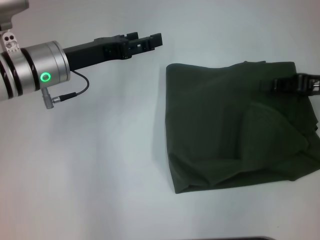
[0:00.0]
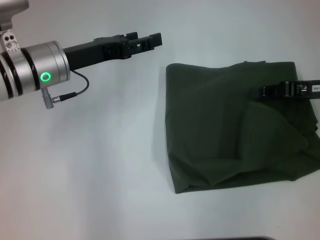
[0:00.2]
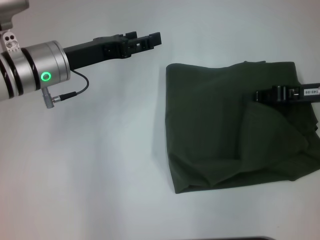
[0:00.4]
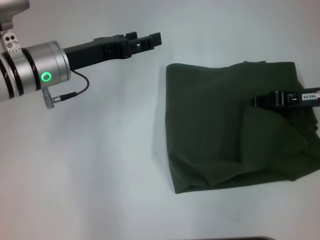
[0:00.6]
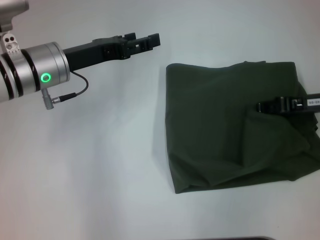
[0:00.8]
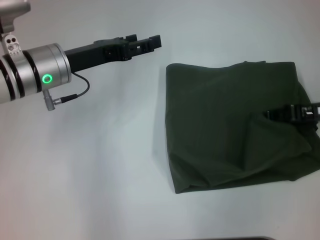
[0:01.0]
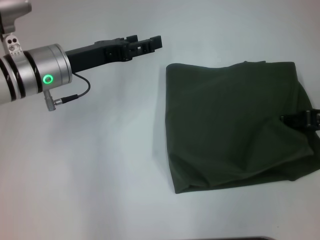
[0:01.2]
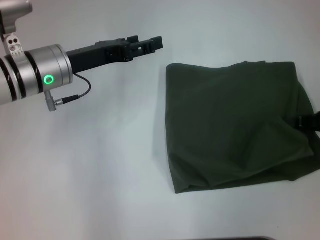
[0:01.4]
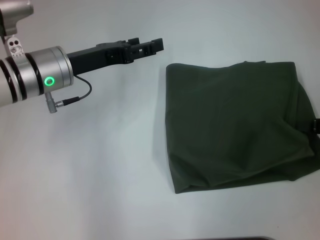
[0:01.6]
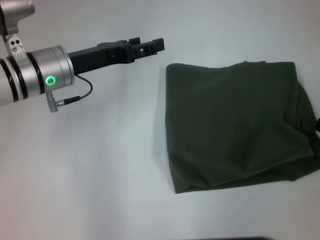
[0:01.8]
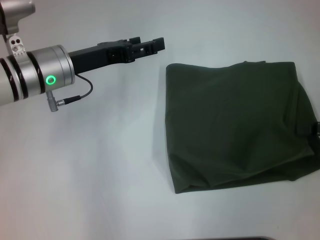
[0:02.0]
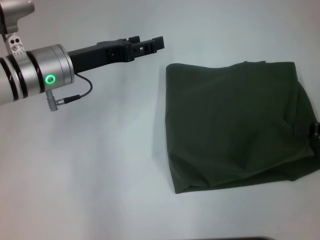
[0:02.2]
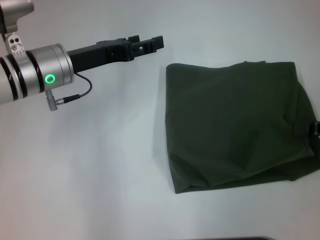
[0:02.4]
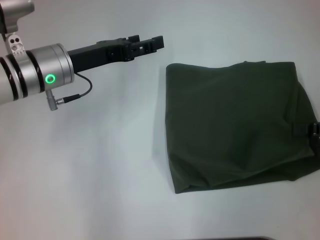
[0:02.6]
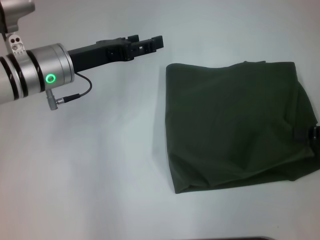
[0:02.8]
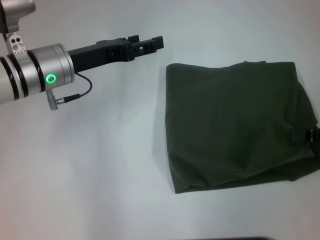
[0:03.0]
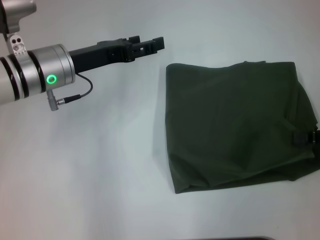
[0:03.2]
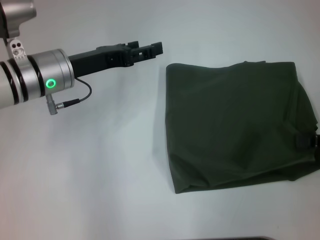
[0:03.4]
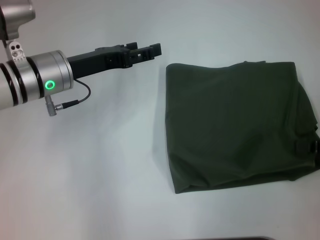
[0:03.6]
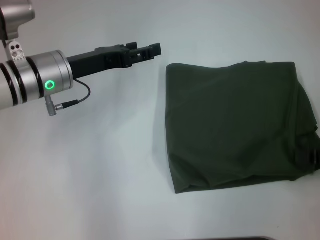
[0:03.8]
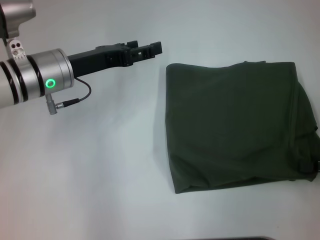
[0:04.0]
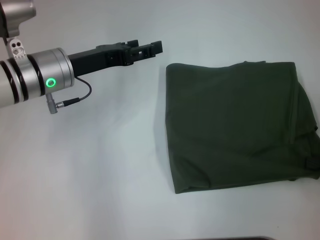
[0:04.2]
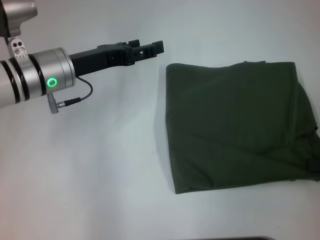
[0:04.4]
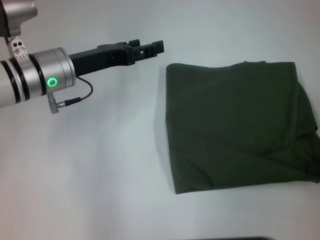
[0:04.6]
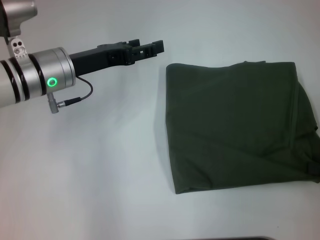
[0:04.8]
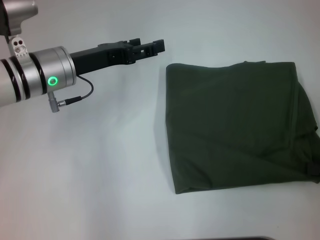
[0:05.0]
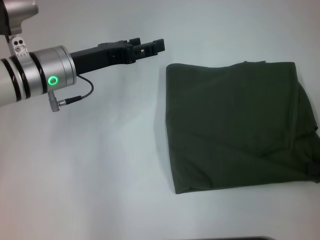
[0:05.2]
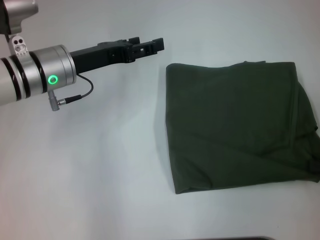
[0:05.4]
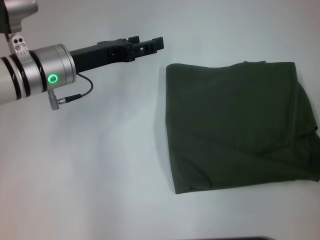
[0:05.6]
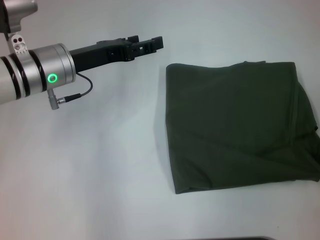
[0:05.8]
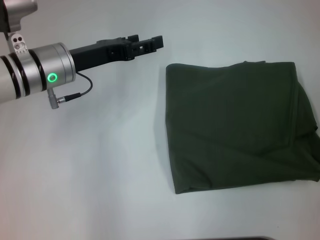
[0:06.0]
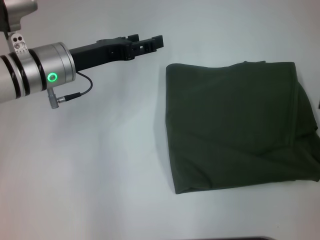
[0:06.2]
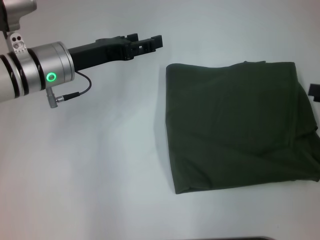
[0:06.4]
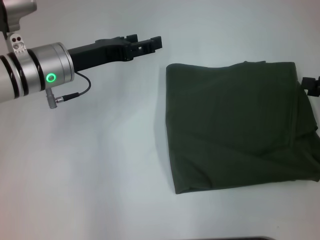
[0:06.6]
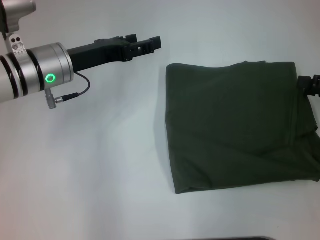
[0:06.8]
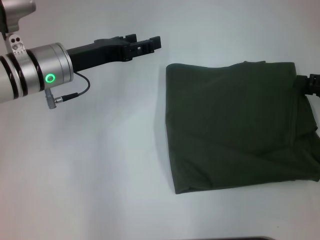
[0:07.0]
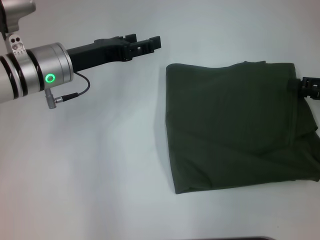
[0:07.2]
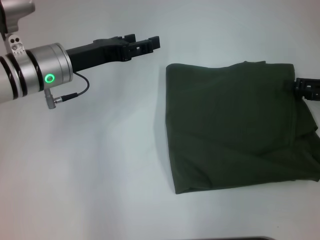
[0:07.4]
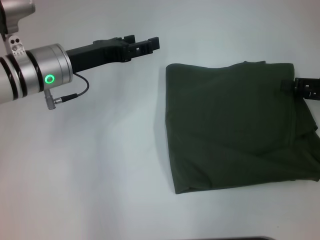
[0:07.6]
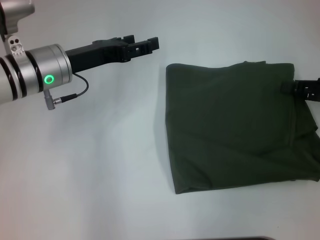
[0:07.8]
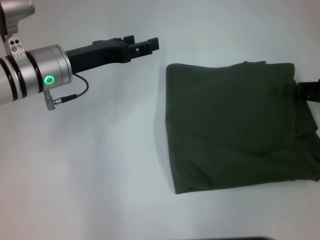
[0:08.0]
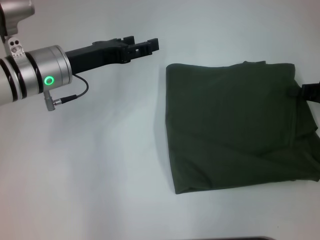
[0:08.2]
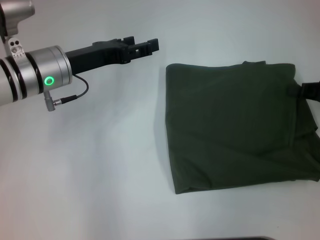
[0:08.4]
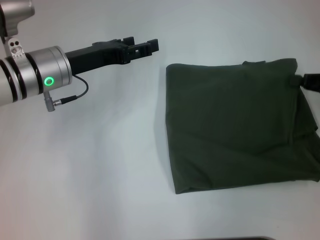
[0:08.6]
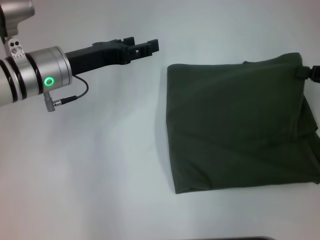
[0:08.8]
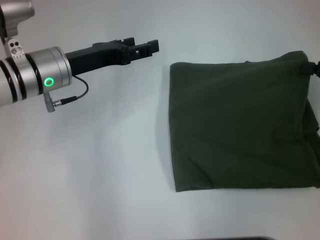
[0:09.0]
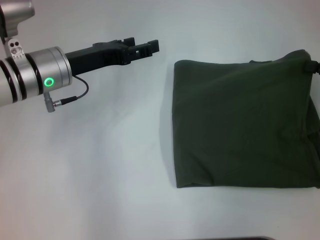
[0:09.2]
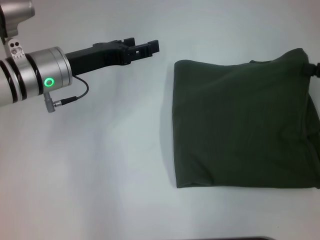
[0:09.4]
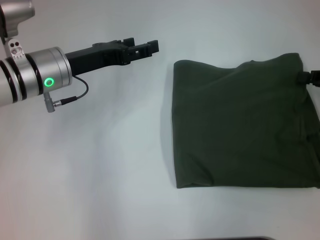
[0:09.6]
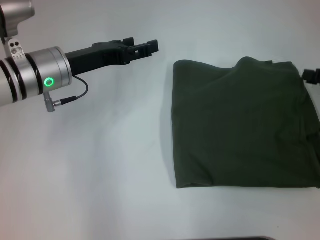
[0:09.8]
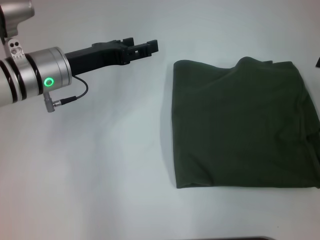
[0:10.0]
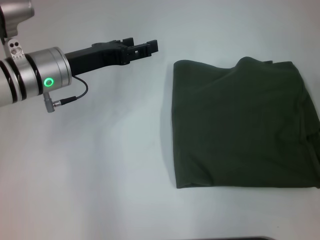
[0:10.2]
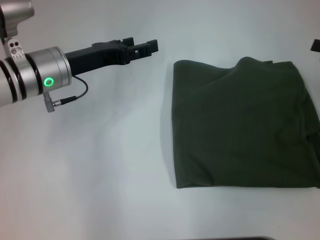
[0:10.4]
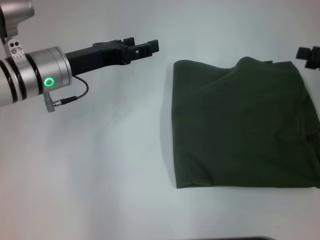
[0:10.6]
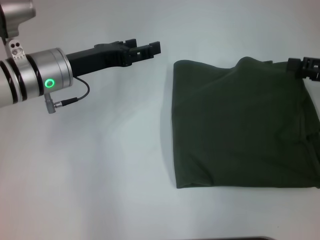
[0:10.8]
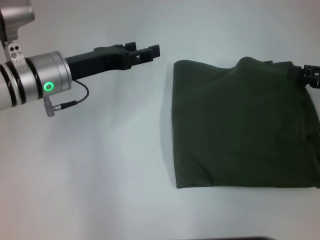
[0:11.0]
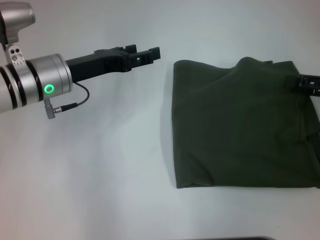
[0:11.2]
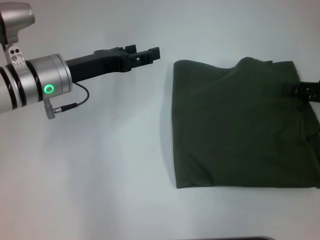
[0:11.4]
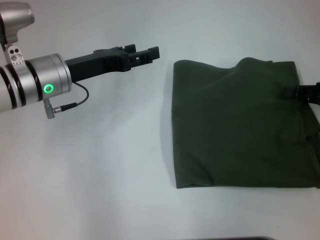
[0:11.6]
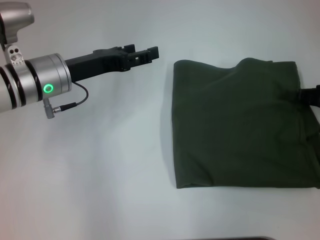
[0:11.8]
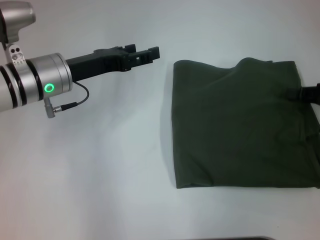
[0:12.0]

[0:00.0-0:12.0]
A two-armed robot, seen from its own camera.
0:00.0 to 0:01.6: The right gripper moves backward, approximately 5 cm.
0:01.6 to 0:03.0: There are only small adjustments of the grippers.
0:03.0 to 0:04.4: The right gripper moves roughly 5 cm.
0:04.4 to 0:06.0: The right gripper opens its fingers.
0:06.0 to 0:07.6: The right gripper shifts approximately 10 cm forward and to the left.
0:07.6 to 0:09.0: The right gripper closes.
0:09.0 to 0:10.4: The right gripper opens up.
0:10.4 to 0:12.0: The right gripper closes its fingers.

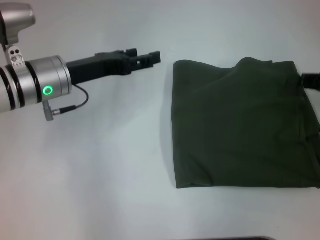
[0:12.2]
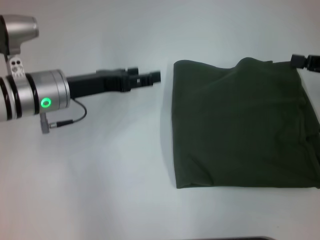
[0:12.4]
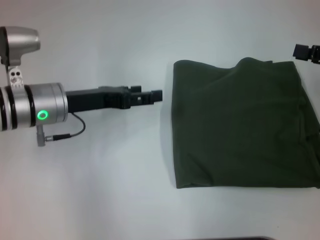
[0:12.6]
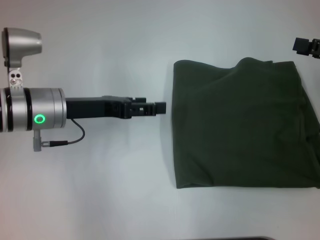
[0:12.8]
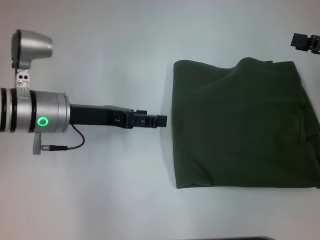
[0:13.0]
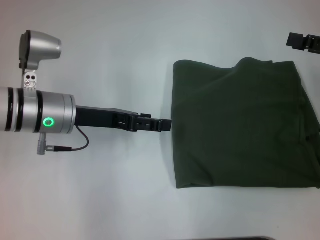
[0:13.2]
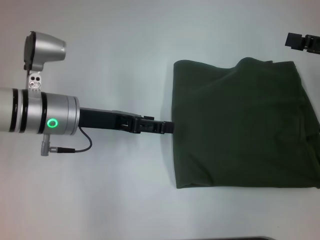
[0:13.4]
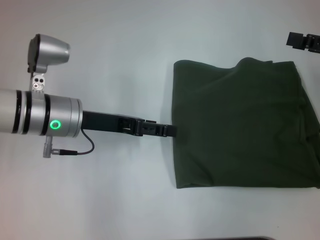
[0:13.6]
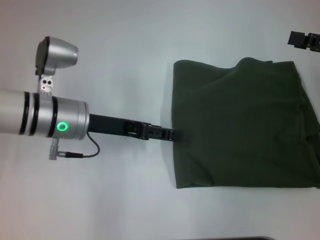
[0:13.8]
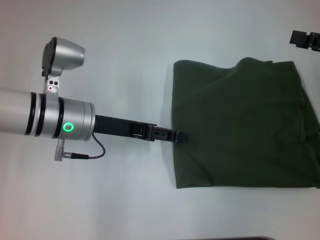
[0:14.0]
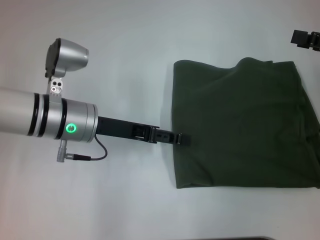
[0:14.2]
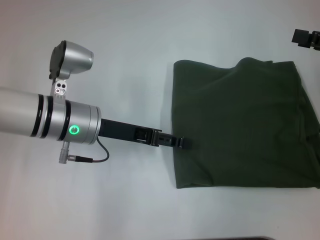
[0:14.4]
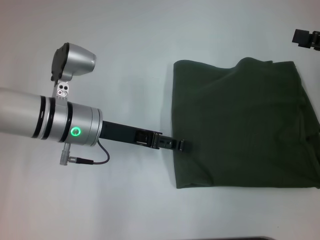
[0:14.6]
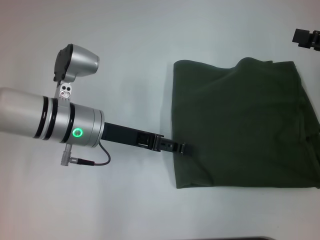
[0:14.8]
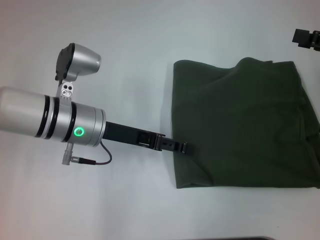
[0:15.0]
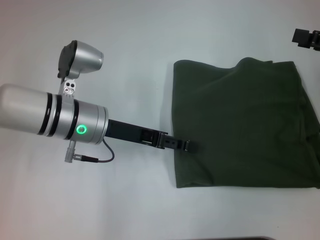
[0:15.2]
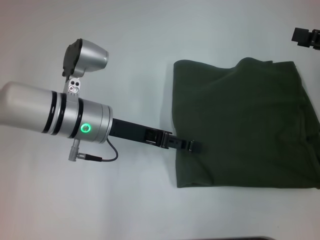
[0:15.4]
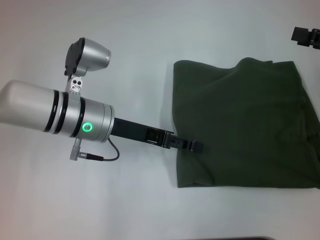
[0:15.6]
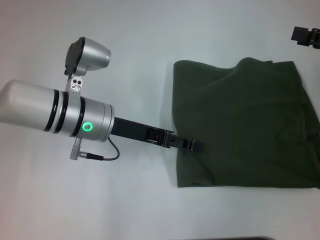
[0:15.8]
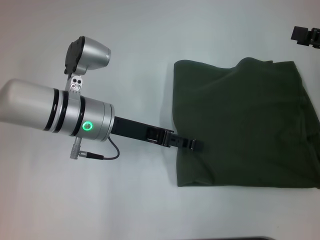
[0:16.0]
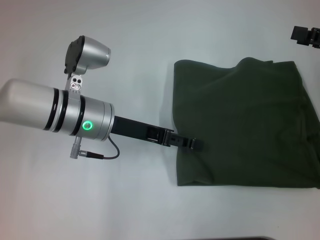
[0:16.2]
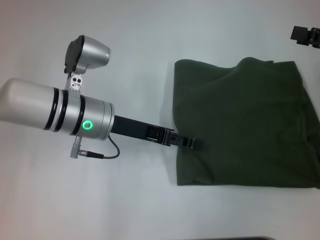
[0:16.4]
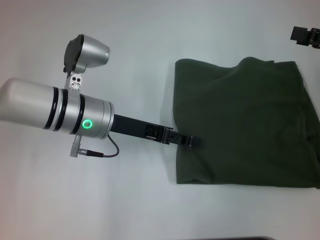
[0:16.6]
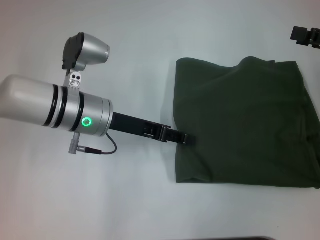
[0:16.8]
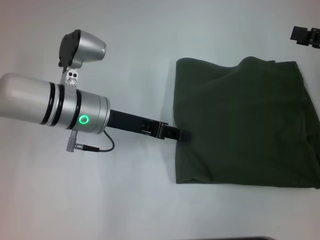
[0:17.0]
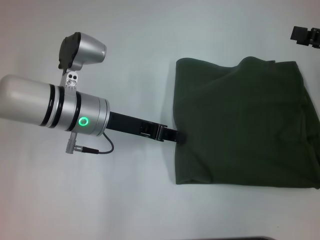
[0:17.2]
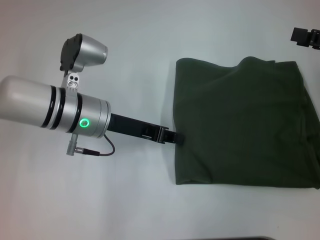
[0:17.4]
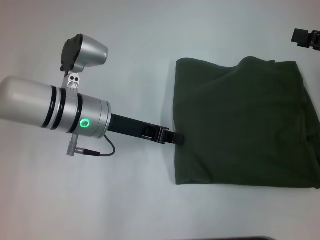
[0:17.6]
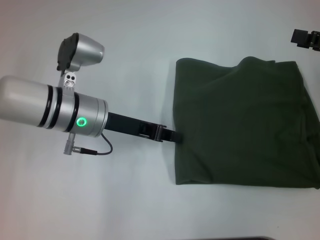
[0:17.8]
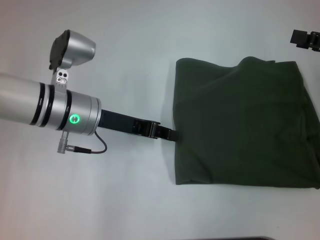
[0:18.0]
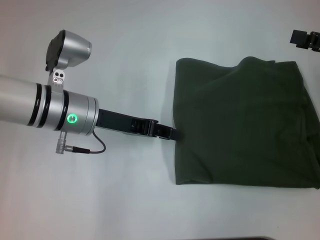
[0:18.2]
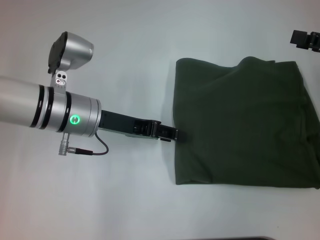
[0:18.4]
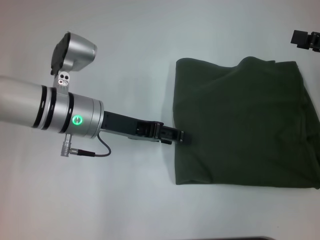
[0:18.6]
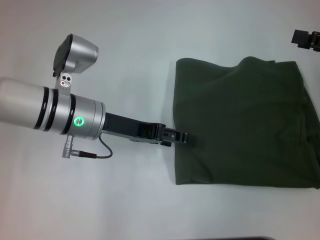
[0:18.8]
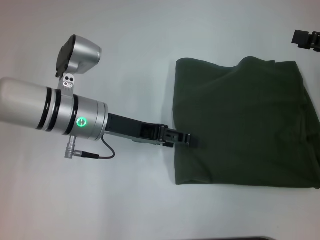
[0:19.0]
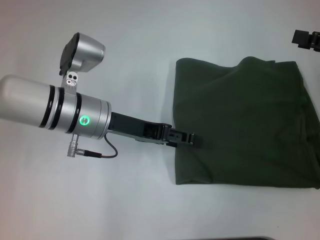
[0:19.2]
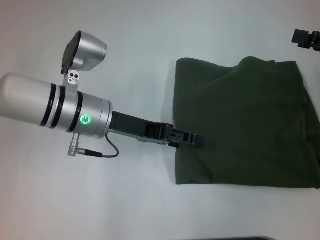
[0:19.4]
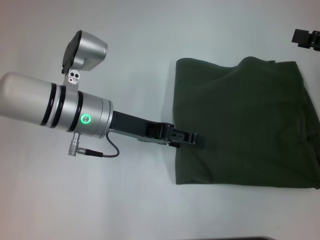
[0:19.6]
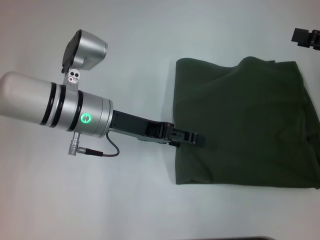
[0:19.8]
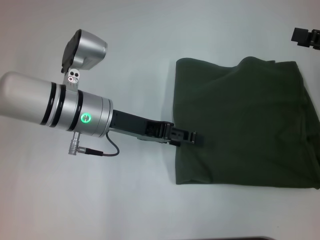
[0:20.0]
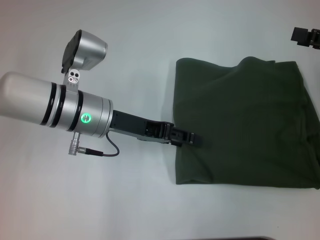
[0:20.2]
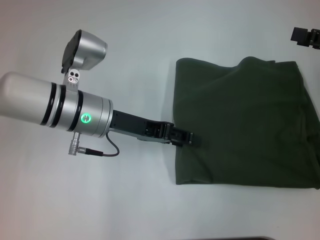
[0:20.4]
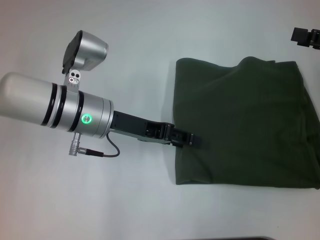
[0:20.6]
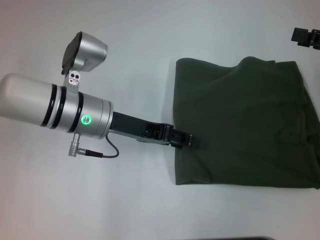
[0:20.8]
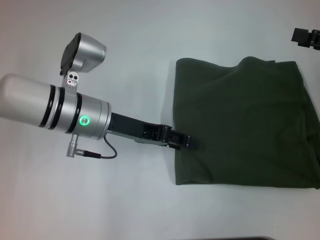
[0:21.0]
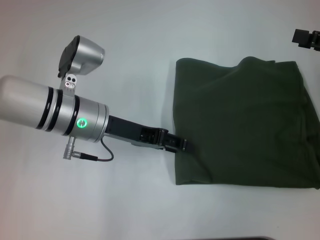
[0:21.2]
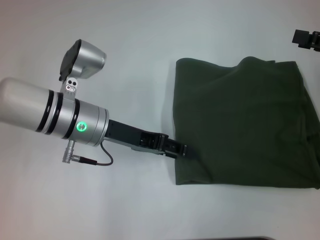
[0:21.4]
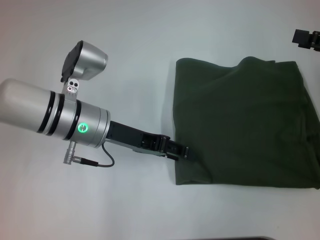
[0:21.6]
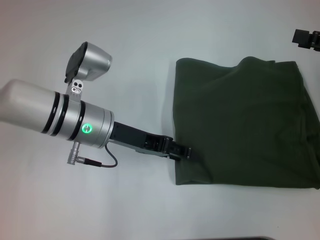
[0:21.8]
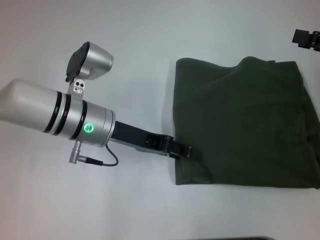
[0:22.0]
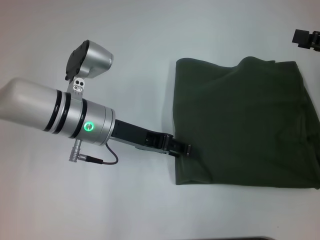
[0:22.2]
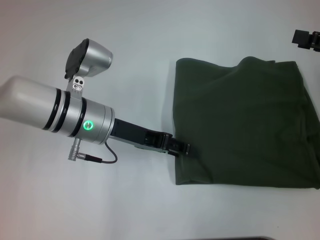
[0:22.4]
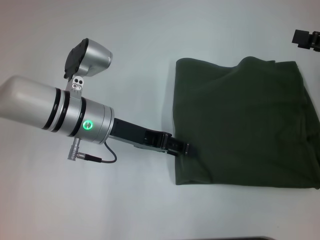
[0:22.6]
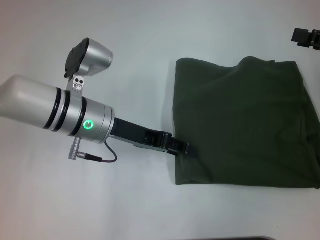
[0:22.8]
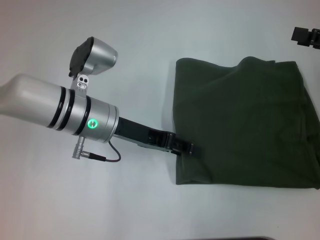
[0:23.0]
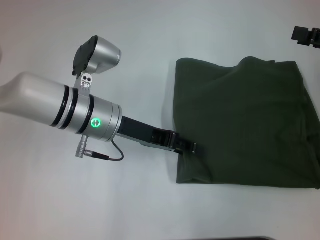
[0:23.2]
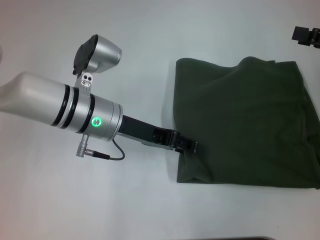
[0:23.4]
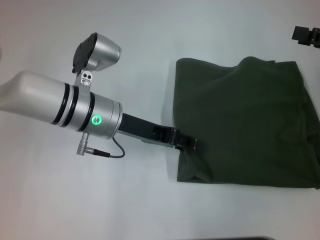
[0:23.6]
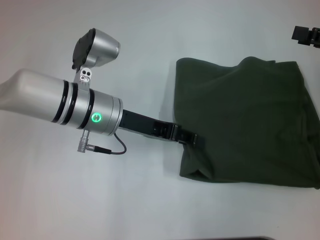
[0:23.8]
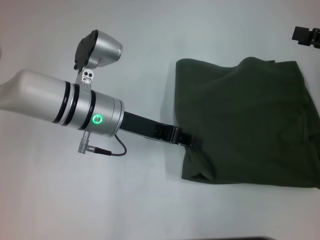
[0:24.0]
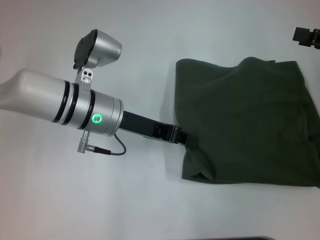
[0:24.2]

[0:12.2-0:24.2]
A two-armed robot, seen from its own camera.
0:12.2 to 0:13.8: The right gripper opens its fingers.
0:13.8 to 0:15.2: The grippers make only small movements.
0:15.2 to 0:16.6: The two grippers keep their place.
0:16.6 to 0:18.2: The left gripper closes its fingers.
0:18.2 to 0:19.8: The left gripper opens.
0:19.8 to 0:22.6: Both grippers stay put.
0:22.6 to 0:24.2: The grippers move only a little.
